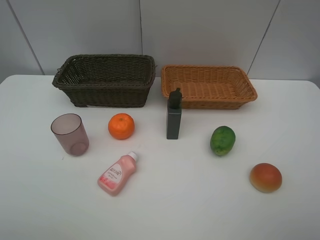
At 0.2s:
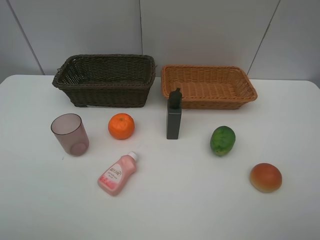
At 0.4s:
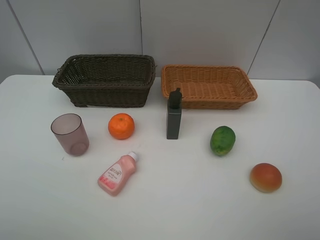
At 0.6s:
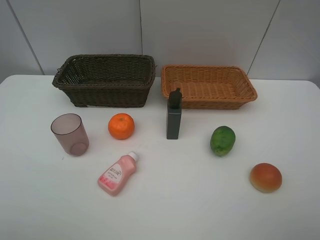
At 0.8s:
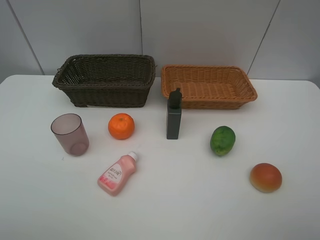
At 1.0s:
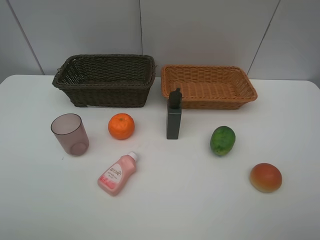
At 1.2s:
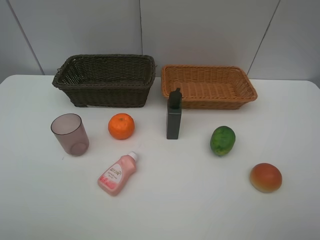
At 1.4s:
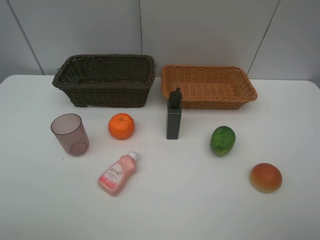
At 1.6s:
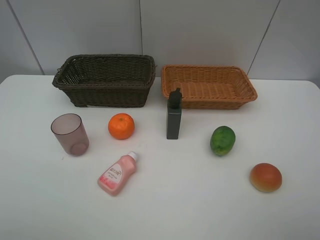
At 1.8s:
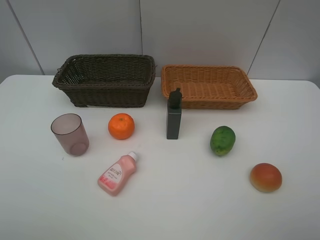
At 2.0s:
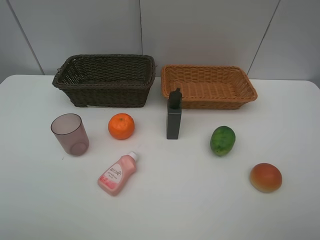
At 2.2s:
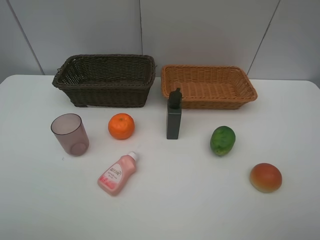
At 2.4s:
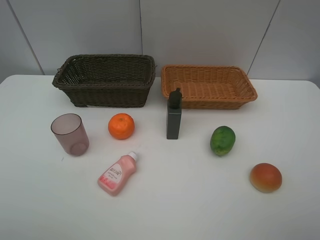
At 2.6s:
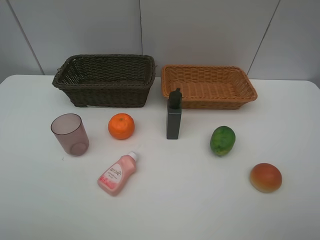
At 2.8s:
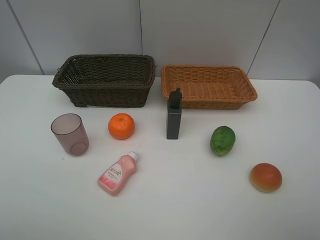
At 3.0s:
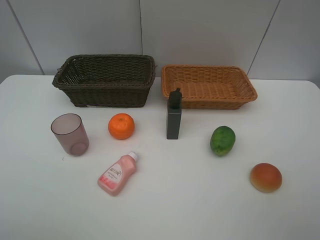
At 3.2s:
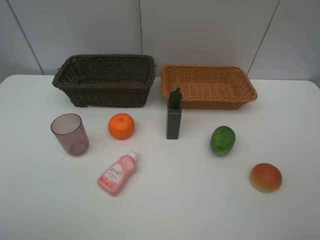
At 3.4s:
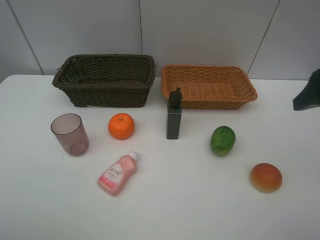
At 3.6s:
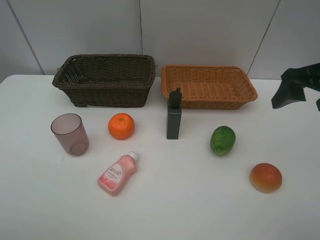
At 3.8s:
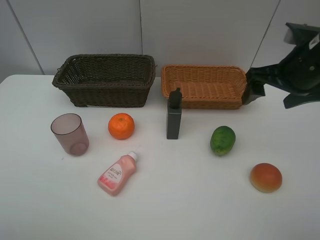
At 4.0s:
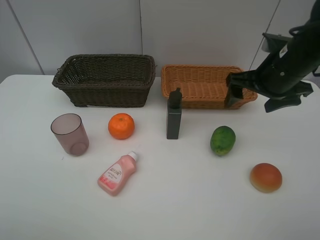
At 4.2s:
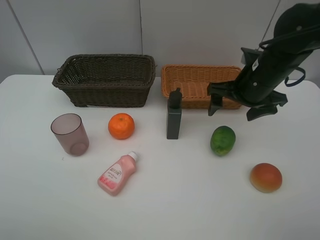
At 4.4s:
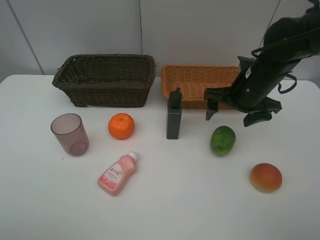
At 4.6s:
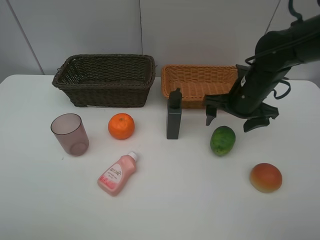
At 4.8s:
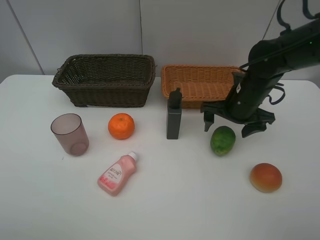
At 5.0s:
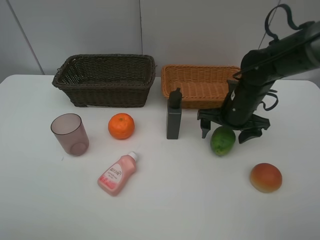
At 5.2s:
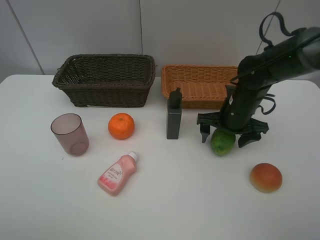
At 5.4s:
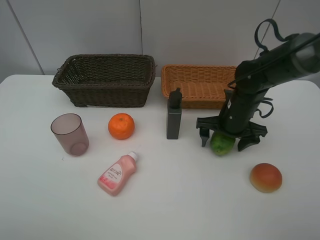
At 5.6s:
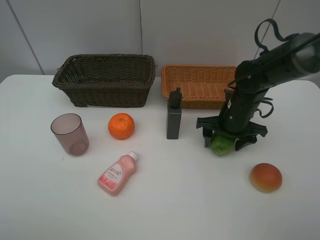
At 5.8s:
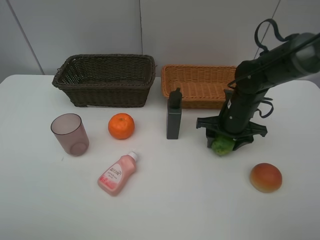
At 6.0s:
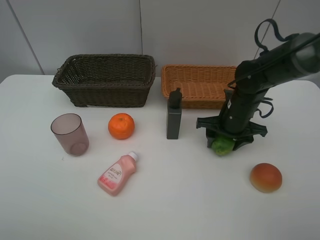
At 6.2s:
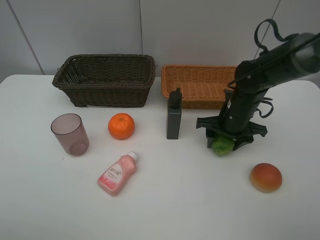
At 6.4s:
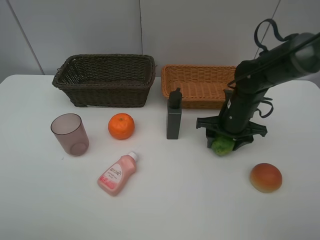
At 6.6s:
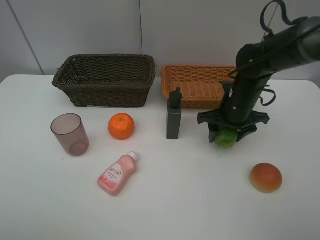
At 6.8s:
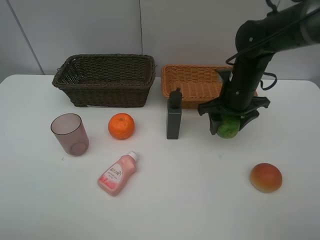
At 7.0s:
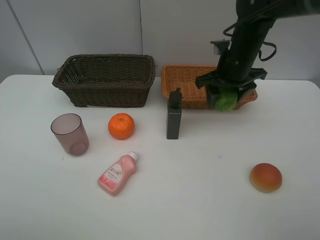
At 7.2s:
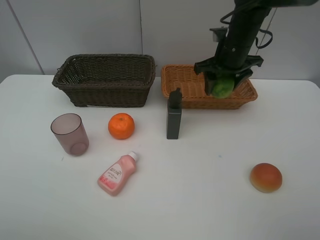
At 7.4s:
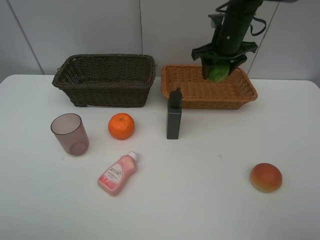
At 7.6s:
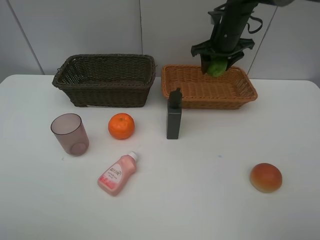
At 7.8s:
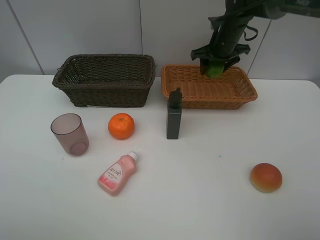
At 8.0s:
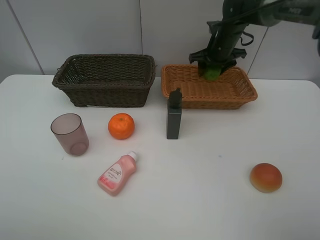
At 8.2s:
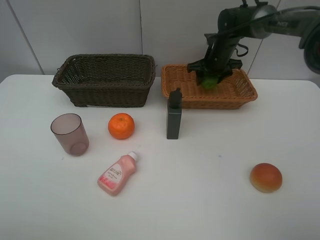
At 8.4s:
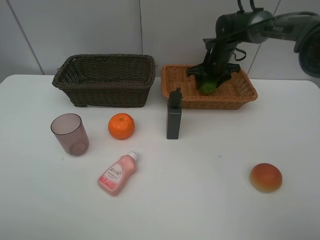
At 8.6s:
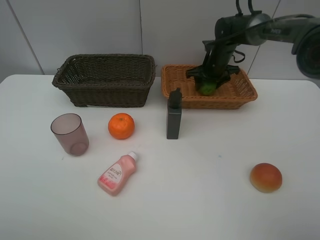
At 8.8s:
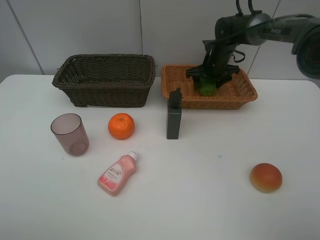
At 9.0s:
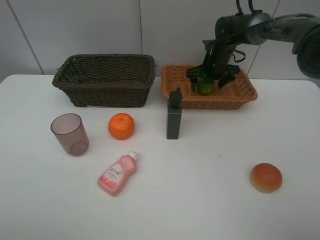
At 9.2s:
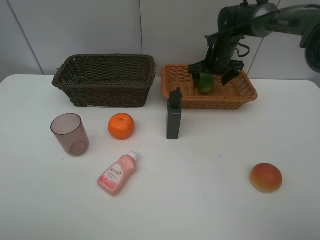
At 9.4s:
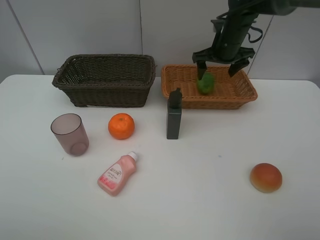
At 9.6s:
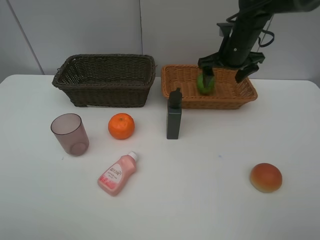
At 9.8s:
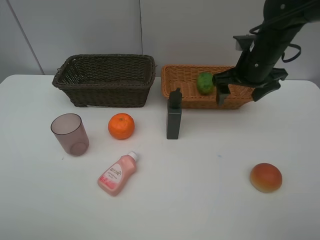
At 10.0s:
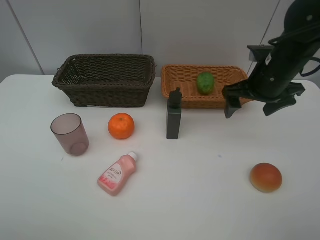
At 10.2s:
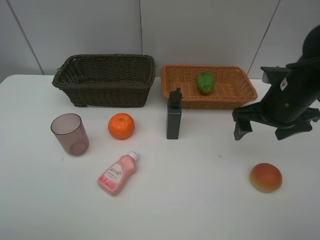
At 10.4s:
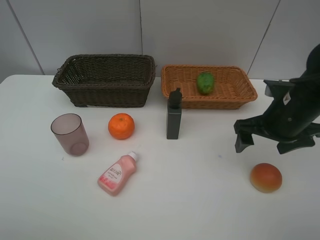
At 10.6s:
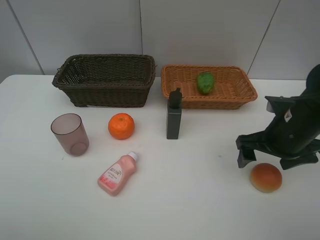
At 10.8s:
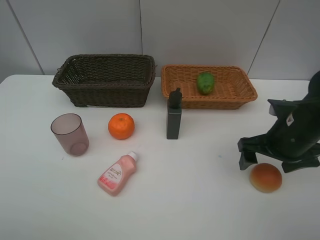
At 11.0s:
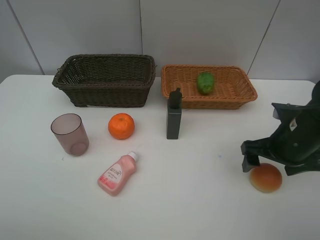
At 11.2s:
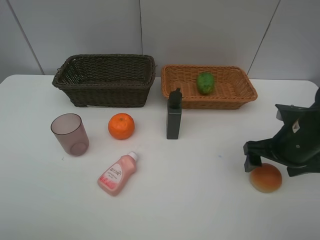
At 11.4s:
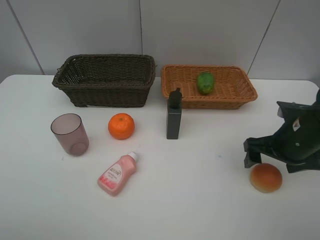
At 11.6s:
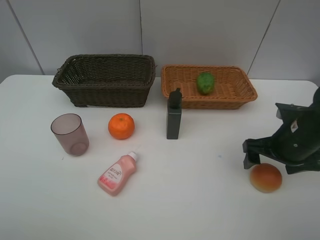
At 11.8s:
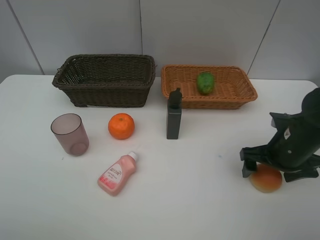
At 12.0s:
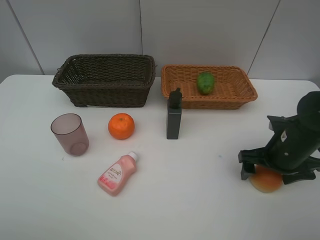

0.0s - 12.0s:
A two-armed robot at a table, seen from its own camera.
Task of the whole recording: place multiple objects separately in different baskets.
0.0s - 1.6s: Neither gripper changes place.
3.0s - 4.4s: The right gripper moves forward, downward and to the left, approximately 30 cm.
4.4s - 6.0s: The right gripper heads downward, covering roughly 5 cm, and closes its fingers.
6.0s - 7.6s: The right gripper shifts roughly 20 cm forward and upward.
7.6s - 9.0s: The right gripper moves downward, roughly 10 cm, and opens its fingers.
9.0s - 10.4s: The right gripper goes about 25 cm backward.
10.4s - 12.0s: The right gripper travels downward by approximately 5 cm.

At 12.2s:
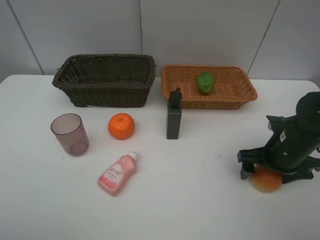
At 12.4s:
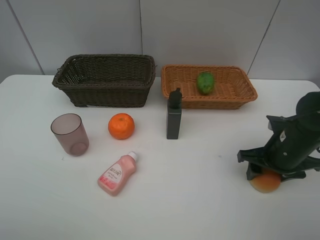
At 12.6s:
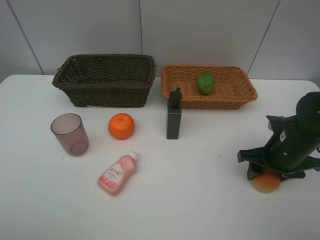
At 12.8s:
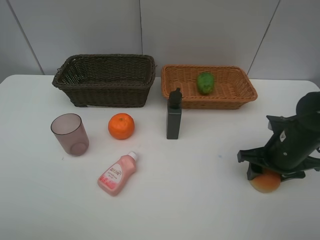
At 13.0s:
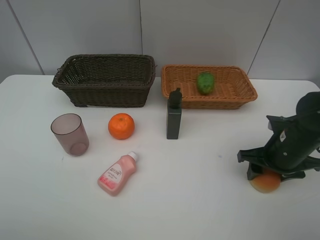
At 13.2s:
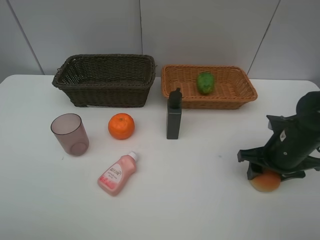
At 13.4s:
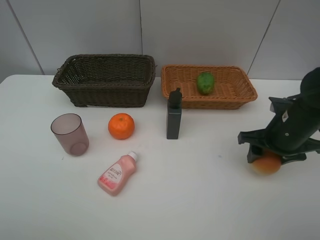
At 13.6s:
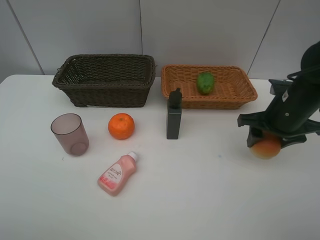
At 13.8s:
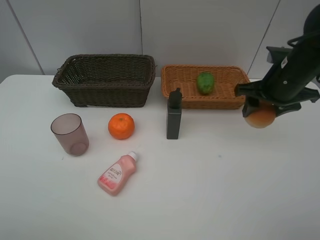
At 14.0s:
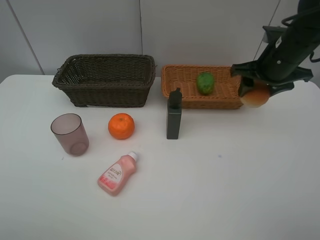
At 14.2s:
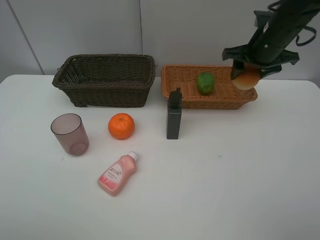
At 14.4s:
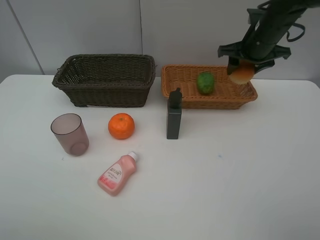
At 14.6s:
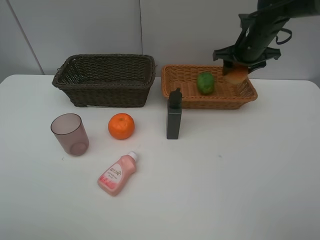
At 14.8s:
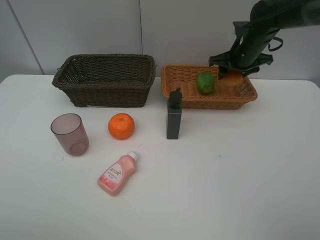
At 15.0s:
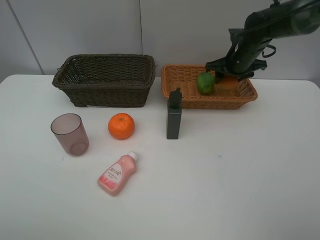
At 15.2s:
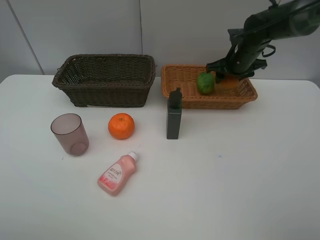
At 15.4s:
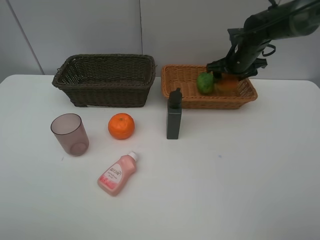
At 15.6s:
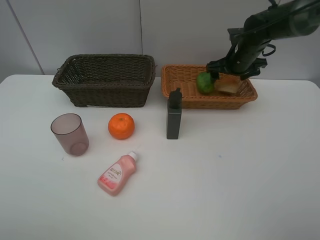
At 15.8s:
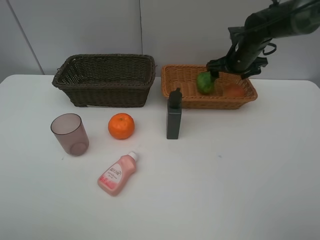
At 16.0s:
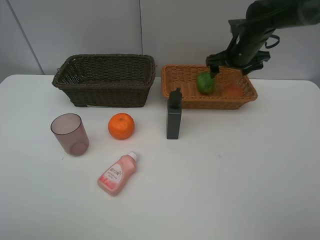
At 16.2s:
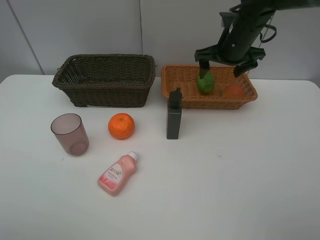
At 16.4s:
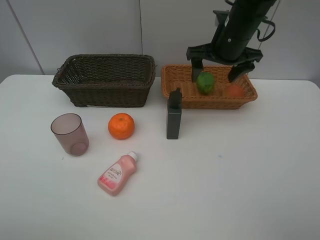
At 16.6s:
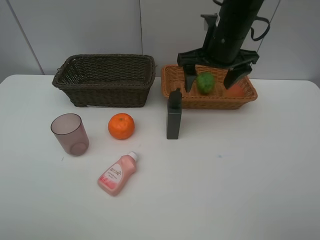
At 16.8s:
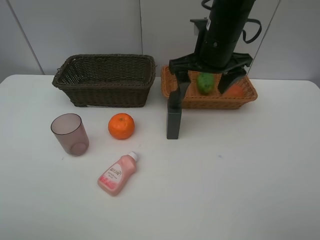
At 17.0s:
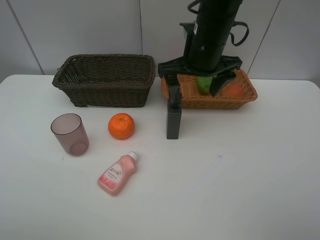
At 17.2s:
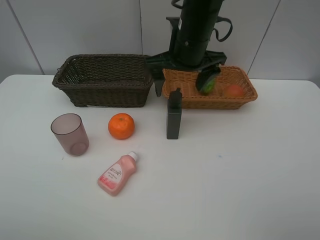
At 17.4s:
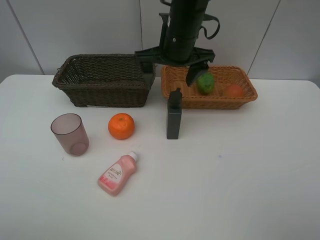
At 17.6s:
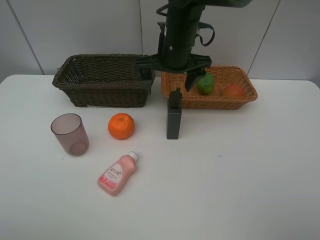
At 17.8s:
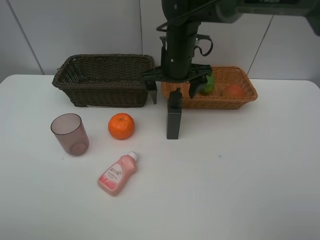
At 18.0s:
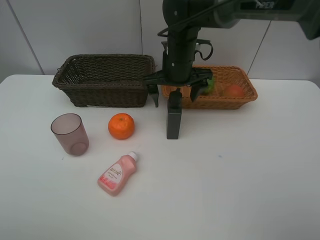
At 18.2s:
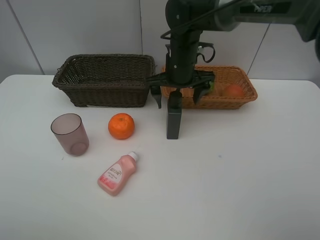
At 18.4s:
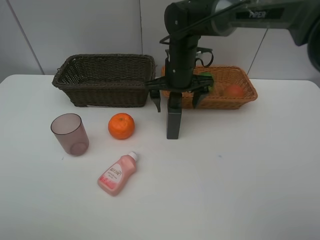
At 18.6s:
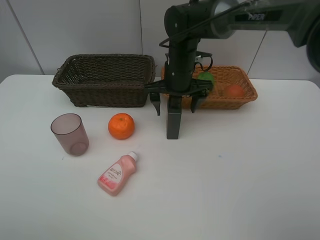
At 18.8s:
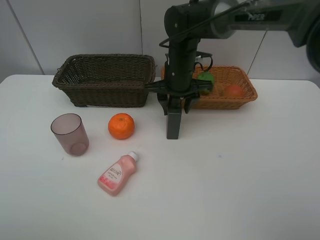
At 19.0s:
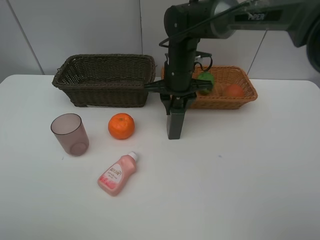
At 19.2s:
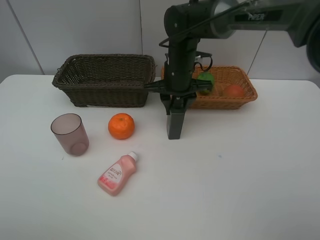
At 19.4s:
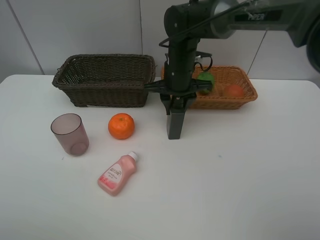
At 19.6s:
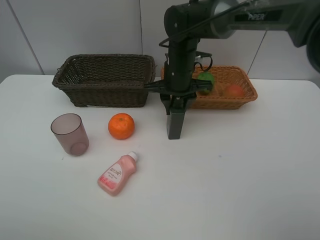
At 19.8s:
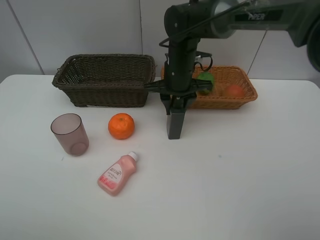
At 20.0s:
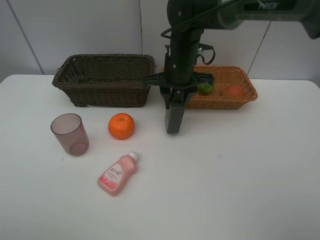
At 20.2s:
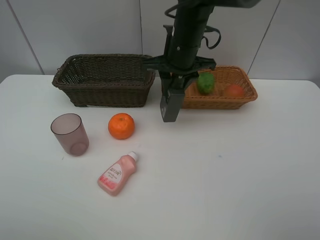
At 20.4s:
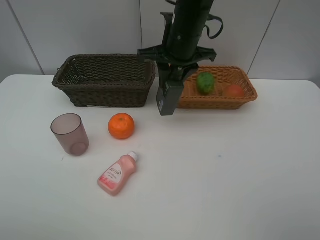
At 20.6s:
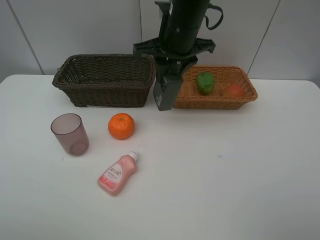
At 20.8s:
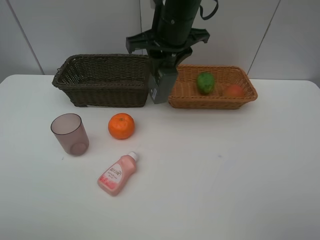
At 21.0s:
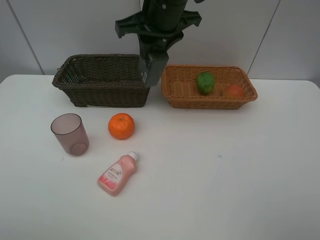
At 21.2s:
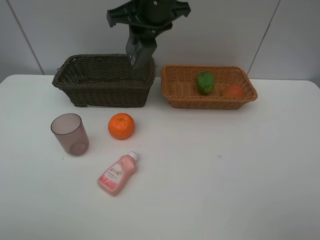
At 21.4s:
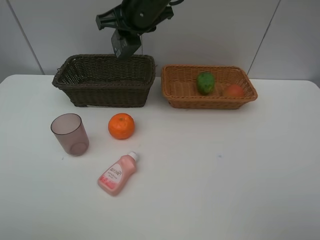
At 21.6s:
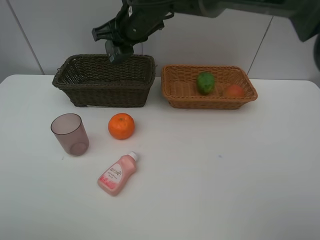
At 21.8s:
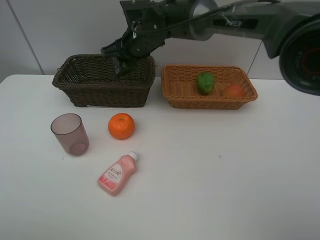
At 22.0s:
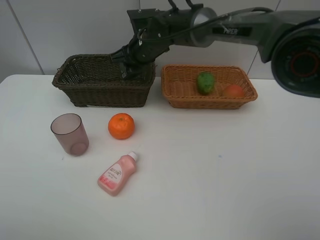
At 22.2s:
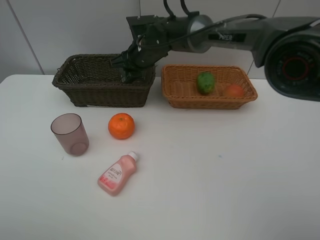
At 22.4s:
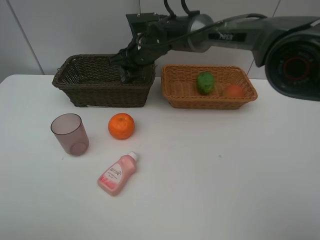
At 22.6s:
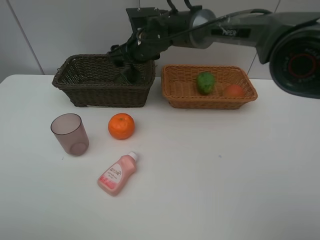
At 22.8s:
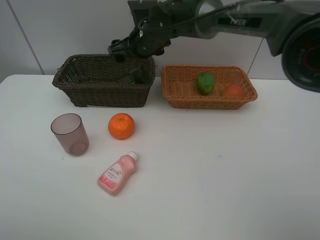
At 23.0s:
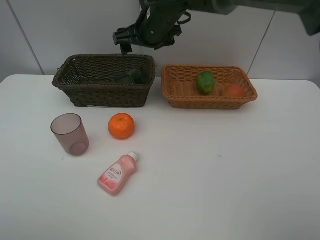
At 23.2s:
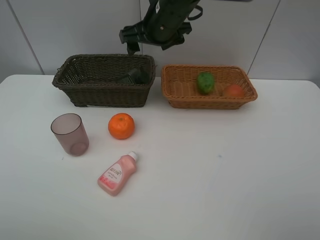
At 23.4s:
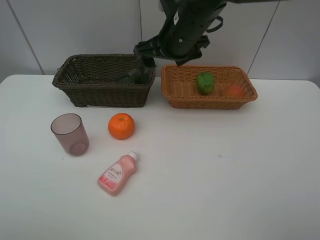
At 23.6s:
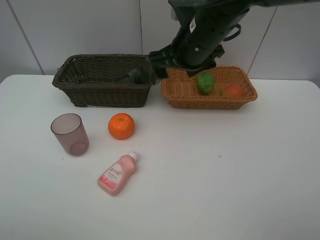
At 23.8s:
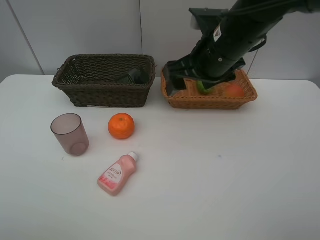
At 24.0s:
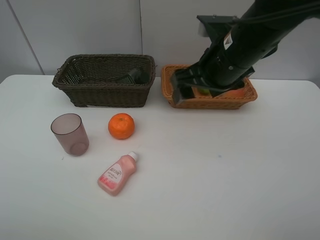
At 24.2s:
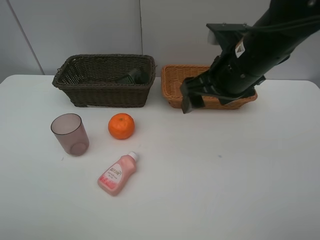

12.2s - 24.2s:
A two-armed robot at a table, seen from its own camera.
Task of the whole recording: place multiple objects separately in different baskets.
12.2s - 13.8s: The right gripper travels upward and forward by approximately 15 cm, and closes.
13.8s - 15.2s: The right gripper moves forward, about 15 cm.
15.2s - 16.6s: The right gripper moves backward, to the left and upward, some 15 cm, and opens up.
16.6s - 18.2s: The right gripper is displaced downward and to the left by roughly 10 cm.
18.2s - 19.8s: The right gripper closes its fingers.
19.8s - 21.2s: The right gripper travels upward by about 15 cm.
21.2s - 22.6s: The right gripper moves downward and forward, approximately 15 cm, and opens its fingers.
22.6s - 24.2s: The right gripper goes about 25 cm backward and to the right.
